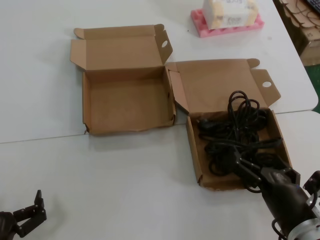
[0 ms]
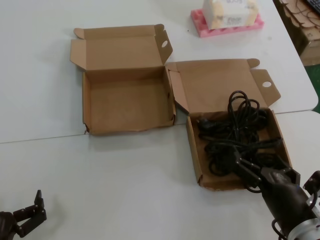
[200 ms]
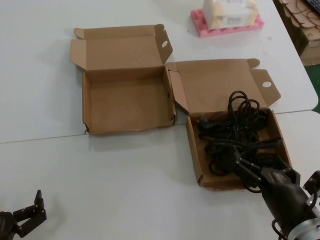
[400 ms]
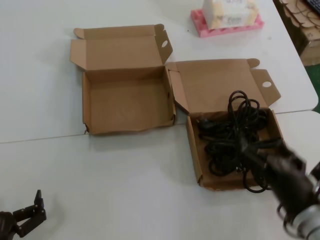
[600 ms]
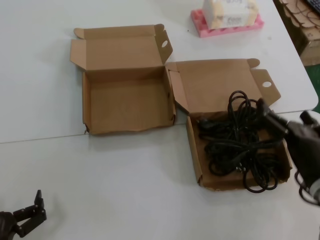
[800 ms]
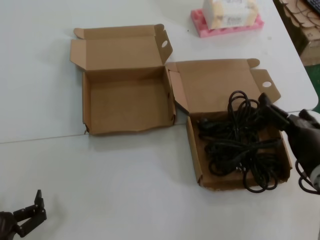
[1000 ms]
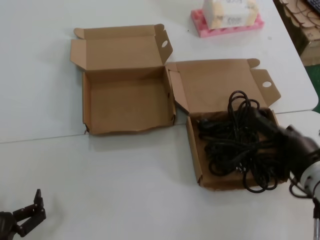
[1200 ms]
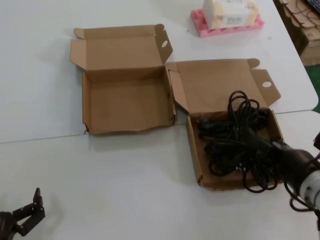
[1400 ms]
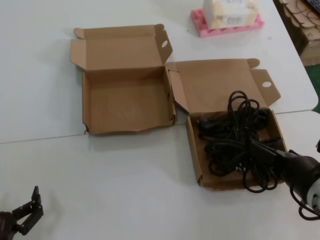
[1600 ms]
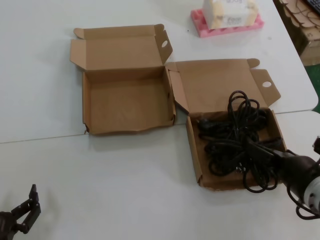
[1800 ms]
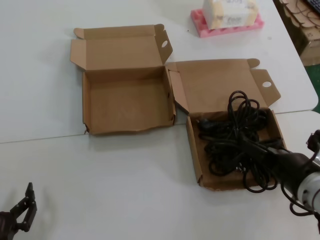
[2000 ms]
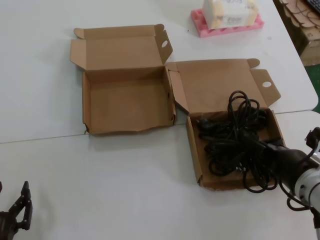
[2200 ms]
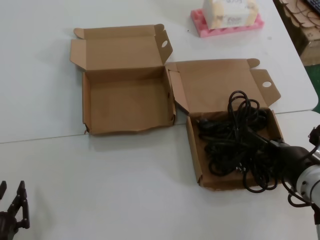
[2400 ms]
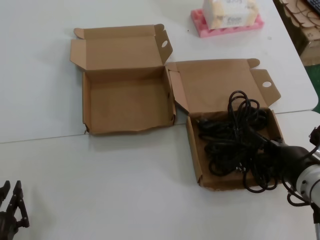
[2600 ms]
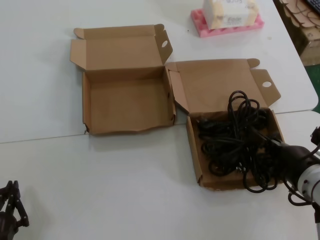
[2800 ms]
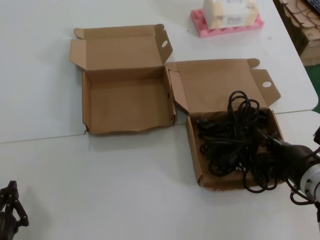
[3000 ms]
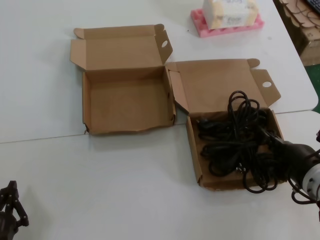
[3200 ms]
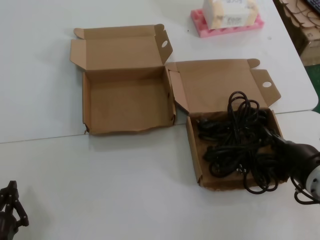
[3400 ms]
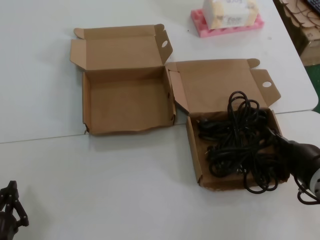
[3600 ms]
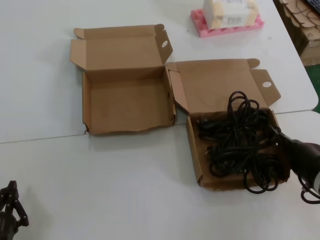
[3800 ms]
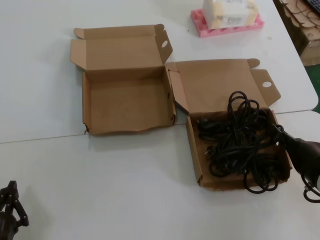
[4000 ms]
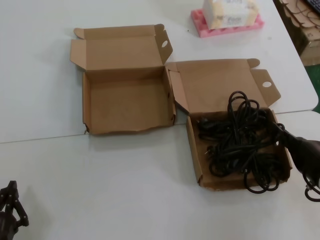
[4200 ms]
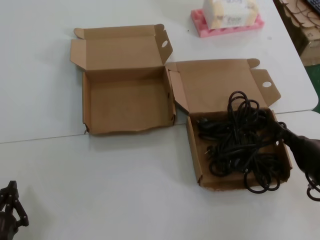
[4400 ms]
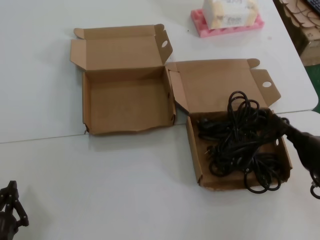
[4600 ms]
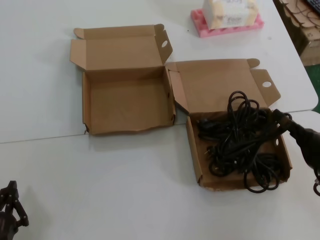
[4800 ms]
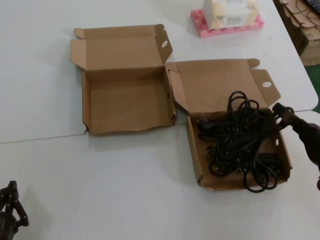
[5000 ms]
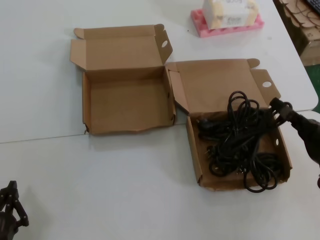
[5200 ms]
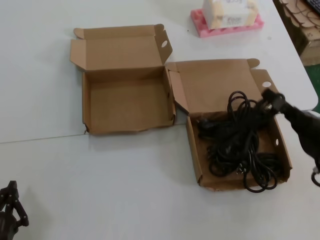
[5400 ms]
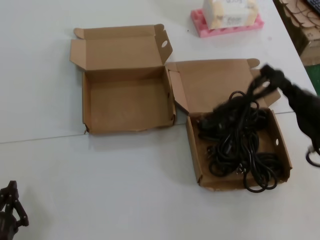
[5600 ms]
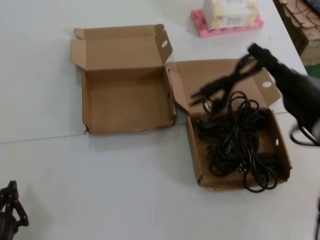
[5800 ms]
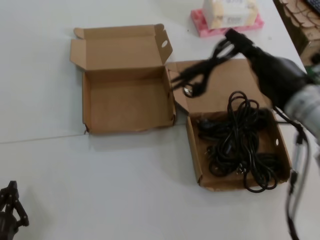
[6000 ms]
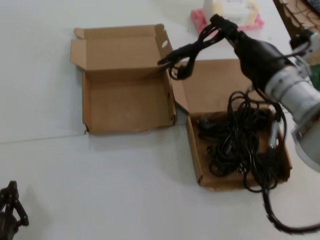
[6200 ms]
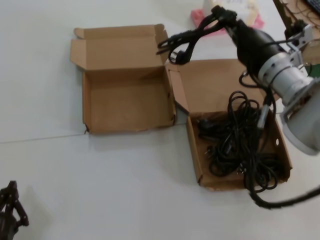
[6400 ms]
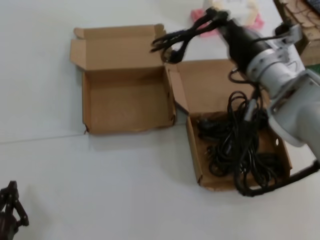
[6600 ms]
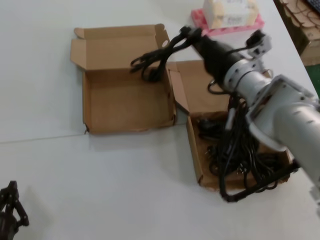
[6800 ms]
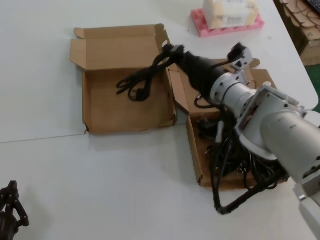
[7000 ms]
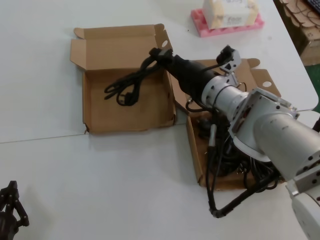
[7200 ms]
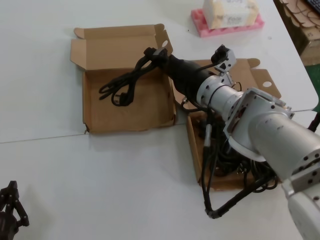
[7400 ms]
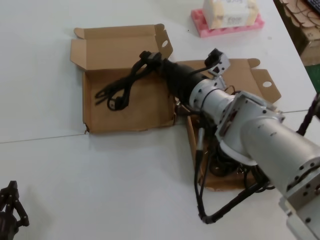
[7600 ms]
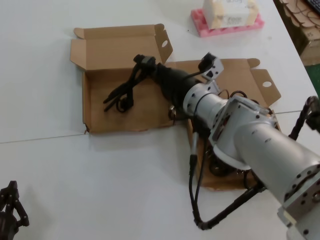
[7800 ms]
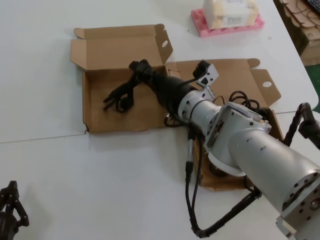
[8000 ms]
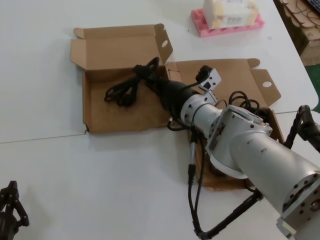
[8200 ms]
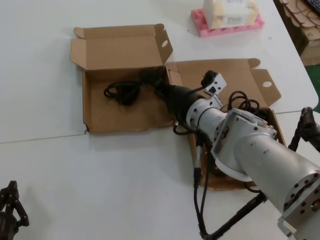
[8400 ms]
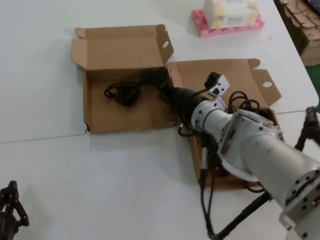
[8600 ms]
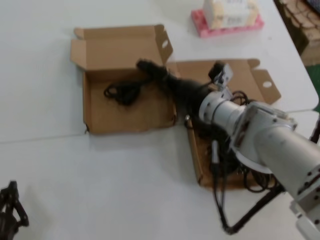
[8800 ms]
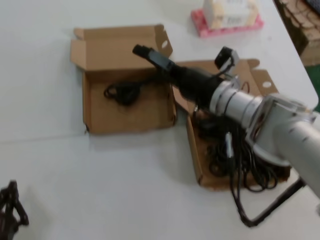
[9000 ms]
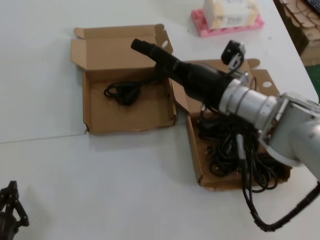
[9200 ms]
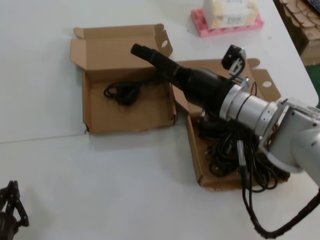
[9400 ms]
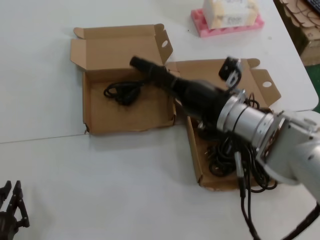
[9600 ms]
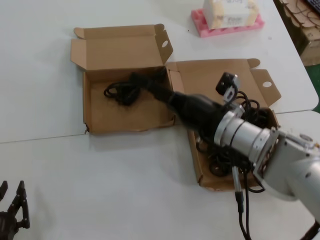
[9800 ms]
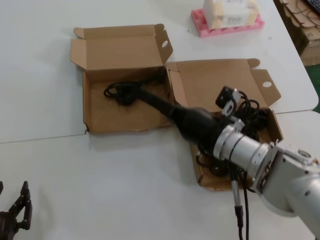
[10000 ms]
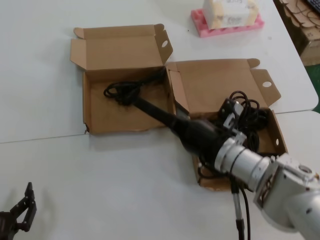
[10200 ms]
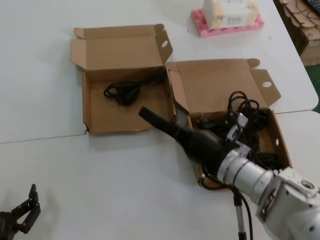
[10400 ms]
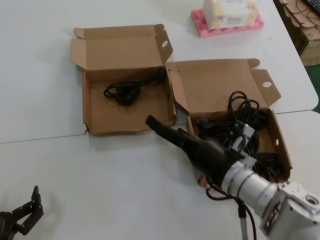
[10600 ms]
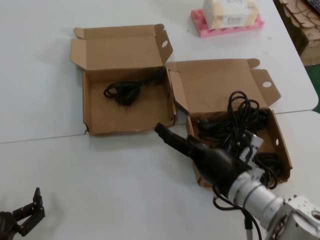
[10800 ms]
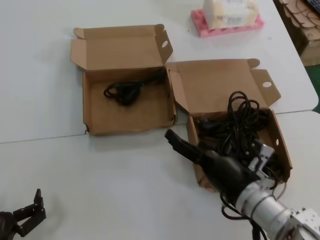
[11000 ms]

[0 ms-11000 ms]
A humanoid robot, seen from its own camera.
Task of the whole recording: Pick up the power cord from the box containing it and place it in another box.
Step, 0 ms to 4400 ms: Grasp the data cable.
Step, 4800 ms to 8600 ms: Place the data cable in the another box.
0 ms to 1600 ms: The right hand shifts about 10 cm upward and forward.
1600 ms to 4800 ms: There are only small adjustments of the hands.
4800 ms to 6200 ms: The right hand shifts roughly 20 cm forward, upward and to the left.
6200 ms to 7800 ms: The right hand goes roughly 15 cm to the left and forward.
7800 ms to 9400 ms: The right hand moves to the right, some 10 cm.
9400 ms to 11000 ms: The right hand is displaced downward and backward by approximately 20 cm.
